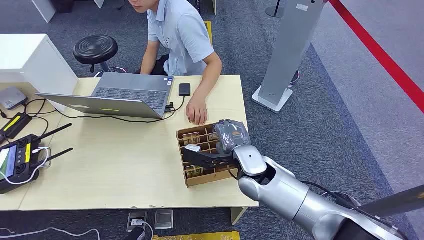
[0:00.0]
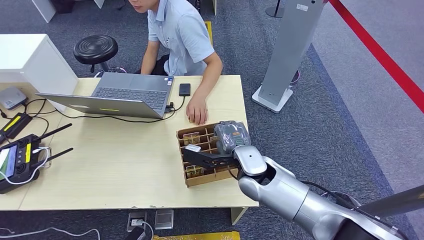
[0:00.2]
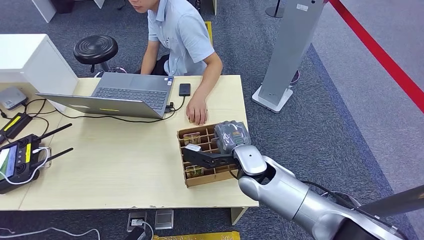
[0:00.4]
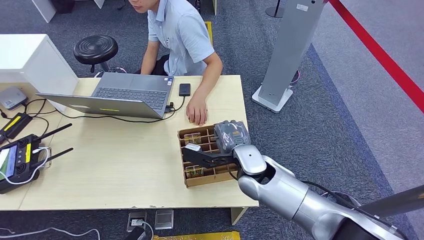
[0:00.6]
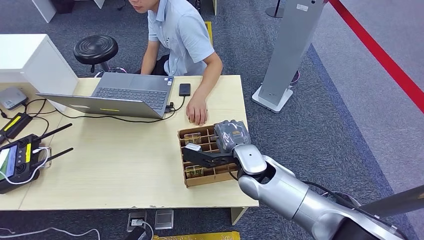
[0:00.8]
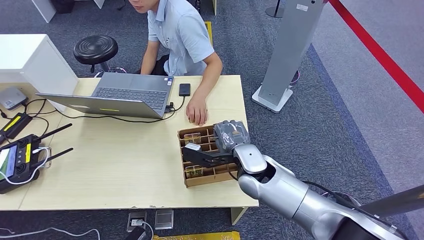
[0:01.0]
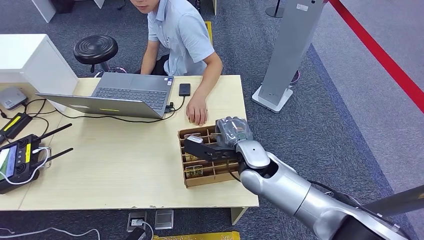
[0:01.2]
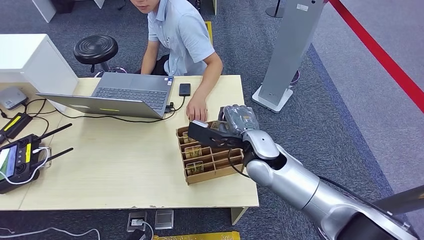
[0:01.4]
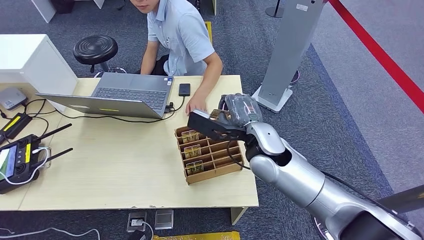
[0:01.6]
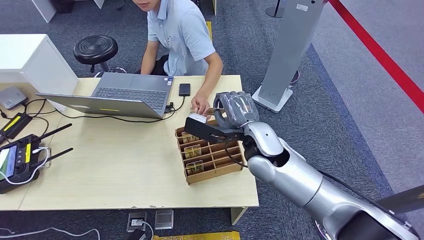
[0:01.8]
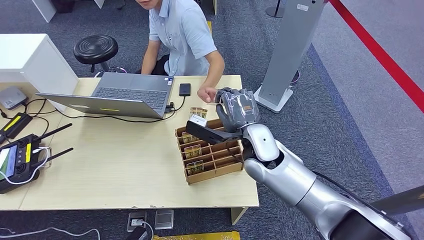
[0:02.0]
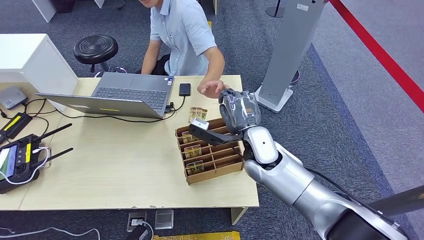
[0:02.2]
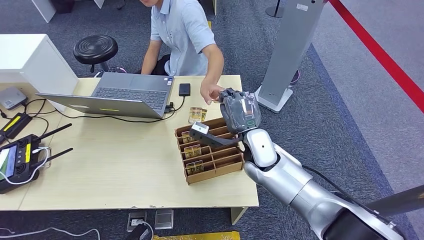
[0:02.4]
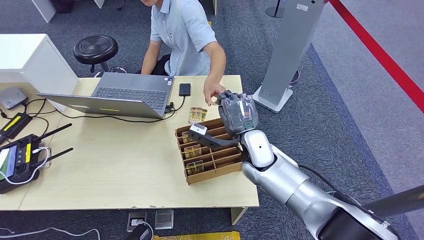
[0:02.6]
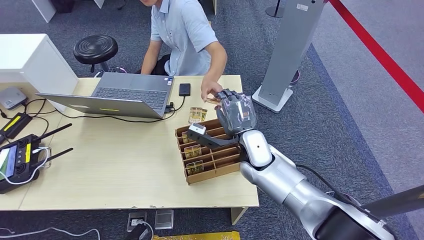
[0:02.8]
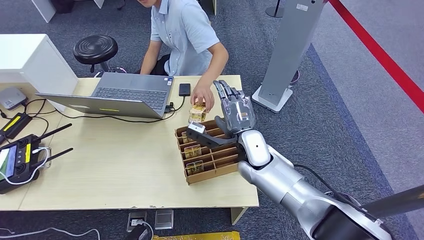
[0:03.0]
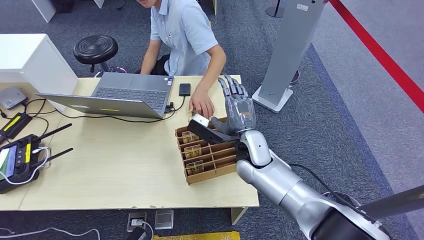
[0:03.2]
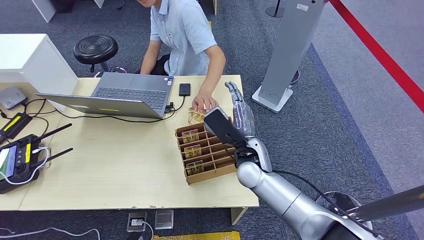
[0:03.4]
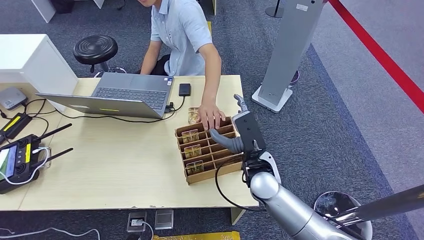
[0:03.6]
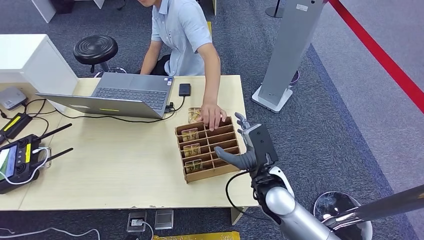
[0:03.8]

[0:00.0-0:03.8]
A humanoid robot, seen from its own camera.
Step, 0:00.0 to 0:01.8: Pick up the room card from the card holder.
Step, 0:02.0 to 0:03.8: Hand the room card to the target.
0:02.6 to 0:03.8: The right hand shifts some 10 cm backward.

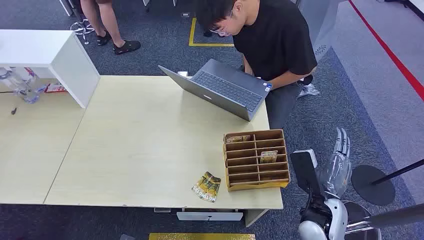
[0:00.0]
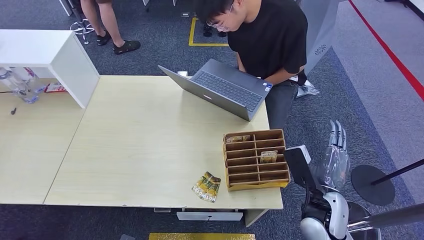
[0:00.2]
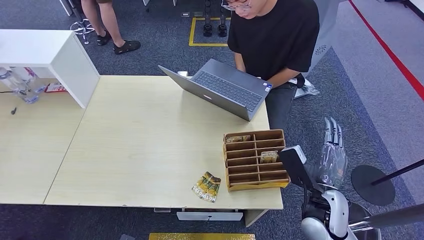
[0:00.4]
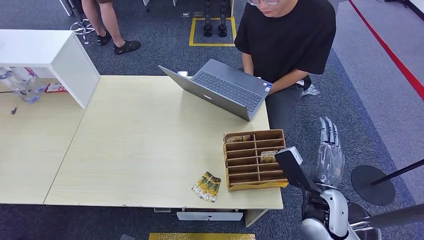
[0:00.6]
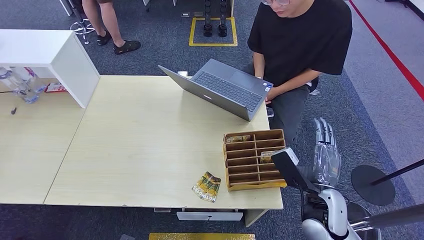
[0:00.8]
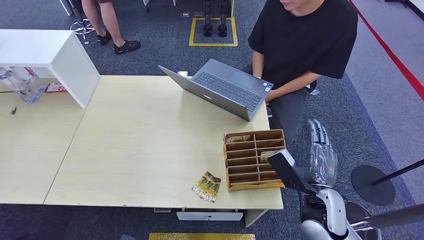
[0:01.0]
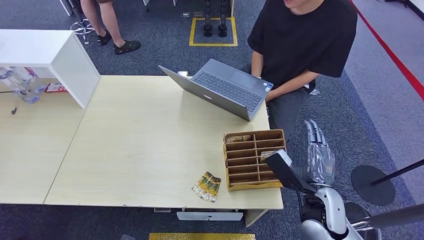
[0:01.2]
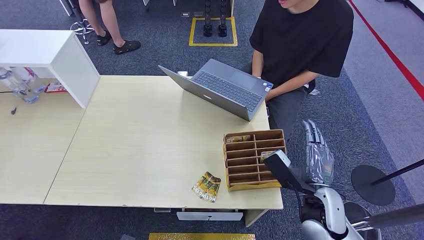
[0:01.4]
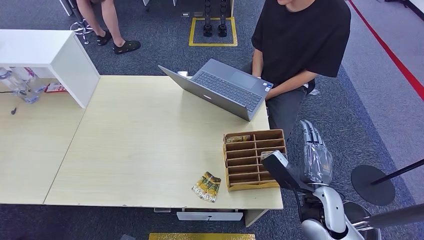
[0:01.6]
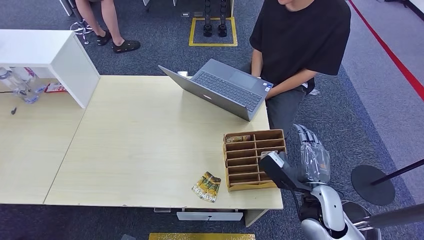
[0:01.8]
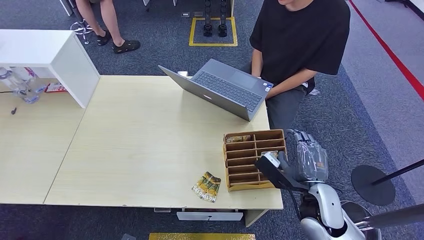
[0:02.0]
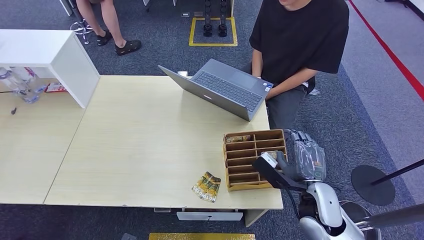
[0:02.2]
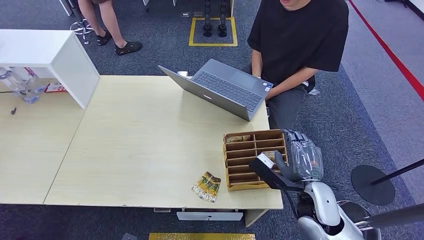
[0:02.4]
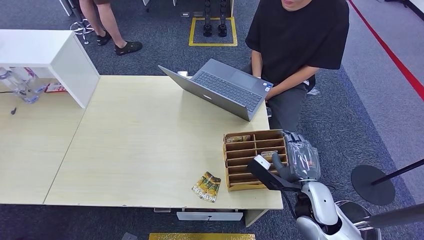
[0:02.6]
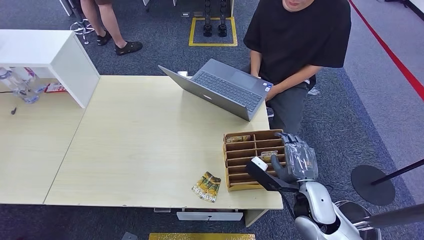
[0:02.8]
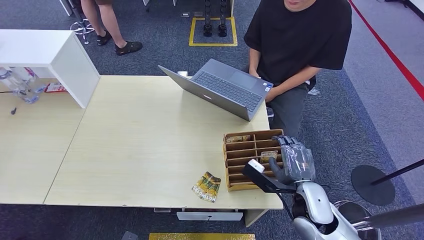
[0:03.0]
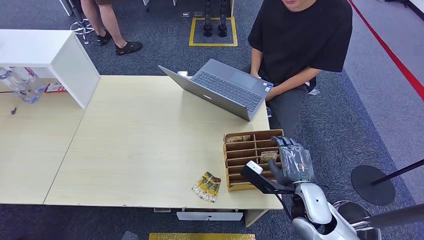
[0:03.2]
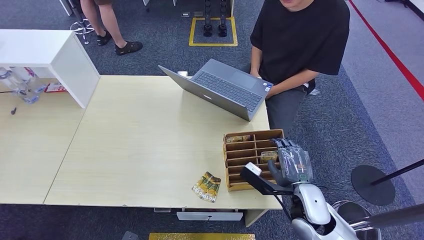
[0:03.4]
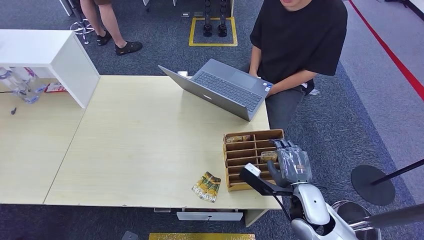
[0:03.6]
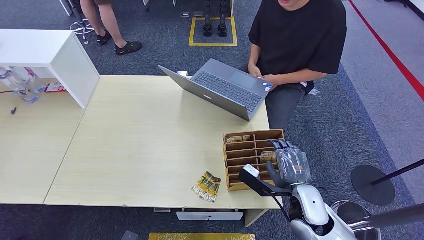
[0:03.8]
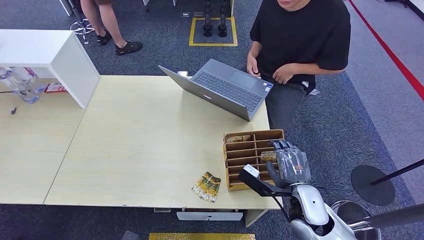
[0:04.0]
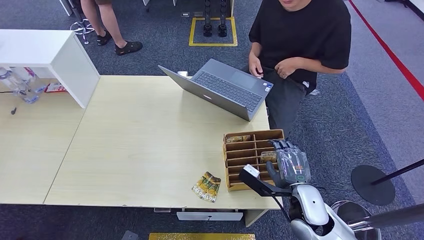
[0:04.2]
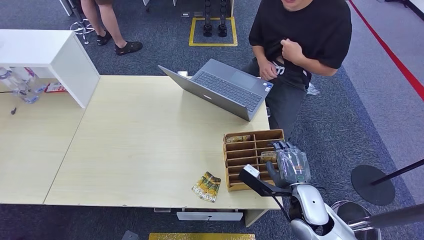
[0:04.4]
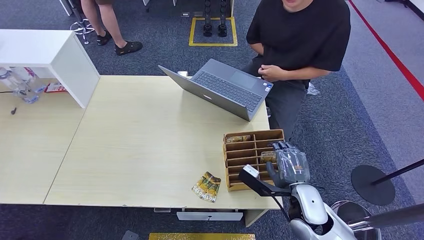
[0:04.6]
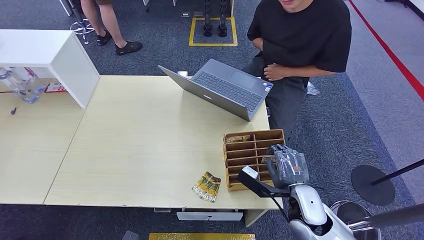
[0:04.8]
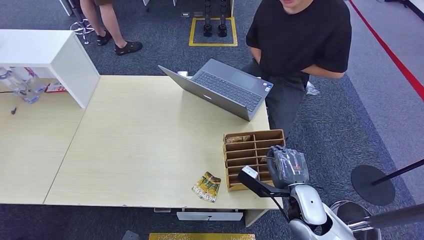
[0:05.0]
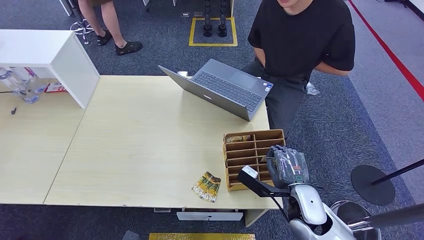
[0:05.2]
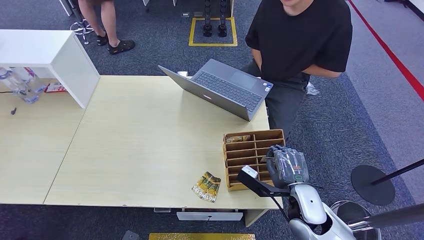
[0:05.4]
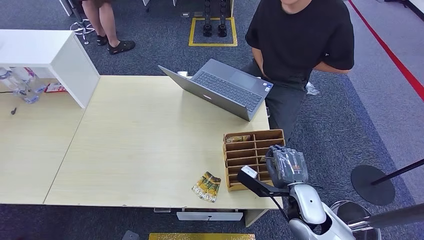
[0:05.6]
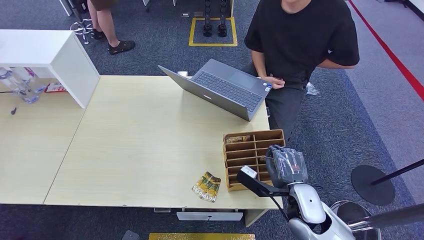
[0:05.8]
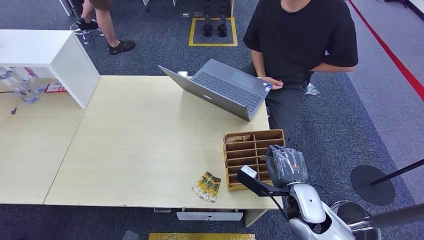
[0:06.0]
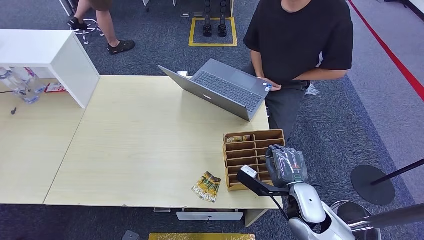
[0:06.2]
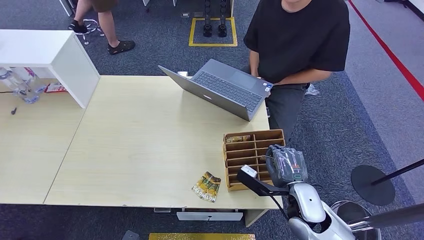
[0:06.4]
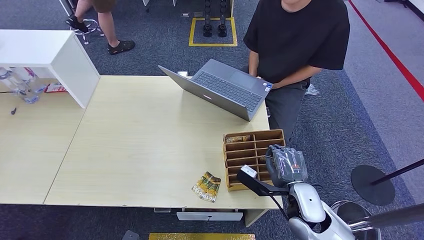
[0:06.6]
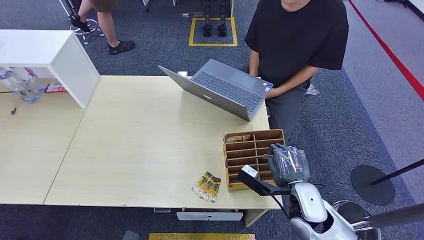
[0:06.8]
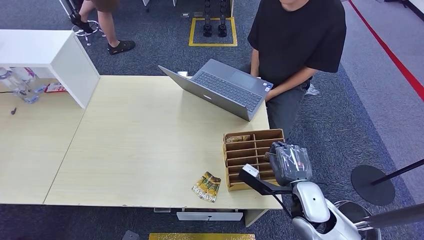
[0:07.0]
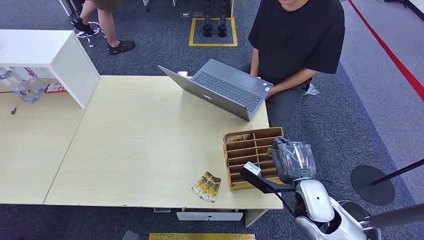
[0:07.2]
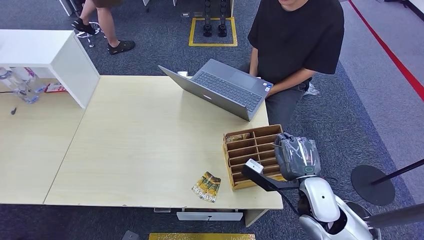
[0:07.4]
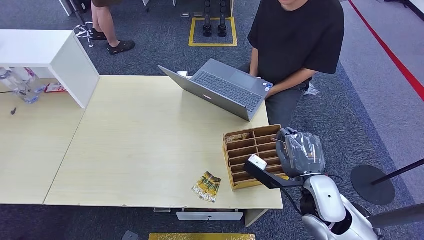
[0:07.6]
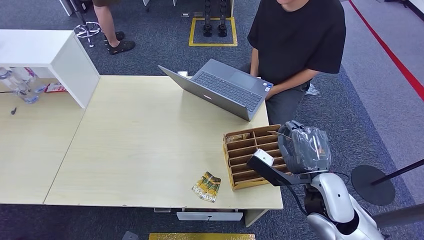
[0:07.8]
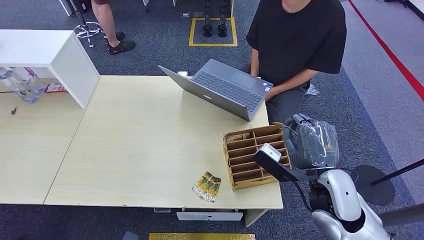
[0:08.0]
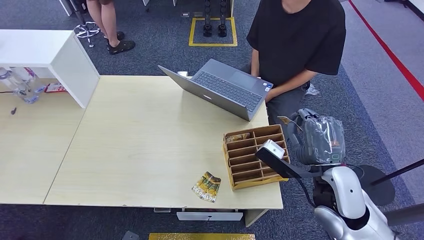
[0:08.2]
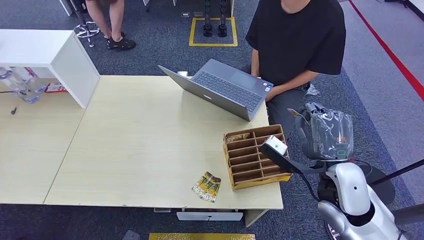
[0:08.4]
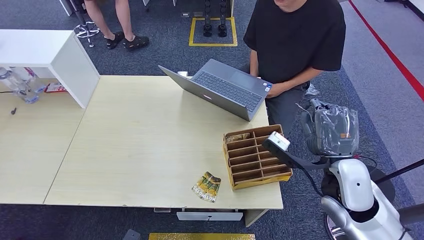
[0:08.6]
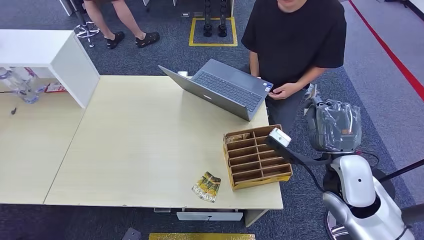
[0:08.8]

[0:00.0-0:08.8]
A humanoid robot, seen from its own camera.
Step, 0:00.0 to 0:07.4: Pick up the room card from the card holder.
Step, 0:07.6 to 0:08.6: Hand the room card to the target.
0:03.0 to 0:04.4: The two hands keep their place.
0:04.4 to 0:05.8: Both hands stay about where they are.
0:05.8 to 0:07.4: The hands move only a little.
0:07.4 to 0:08.8: The right hand is displaced upward by approximately 10 cm.

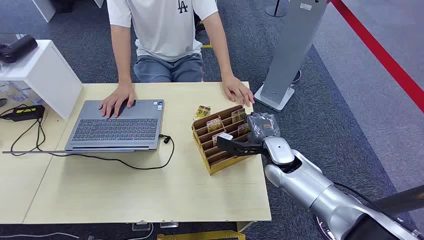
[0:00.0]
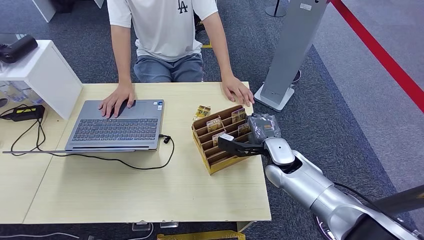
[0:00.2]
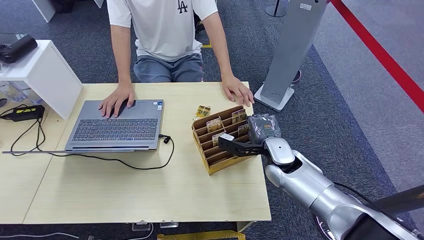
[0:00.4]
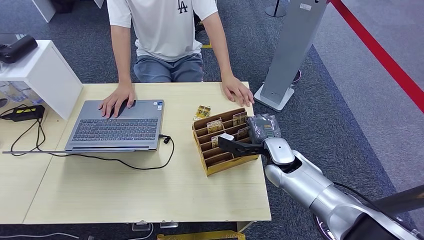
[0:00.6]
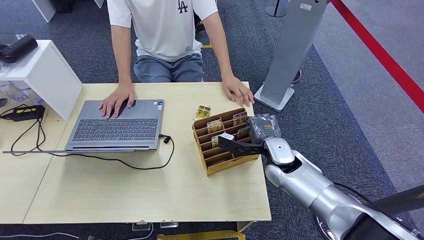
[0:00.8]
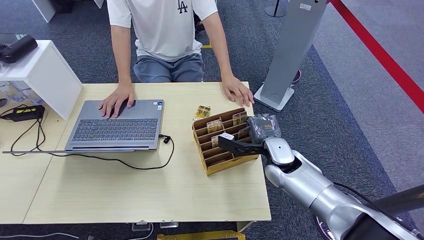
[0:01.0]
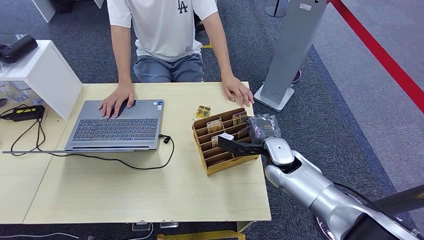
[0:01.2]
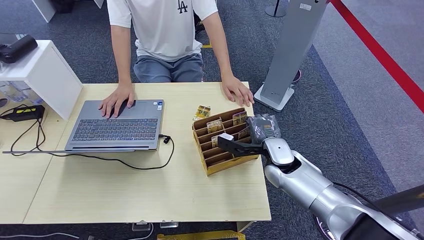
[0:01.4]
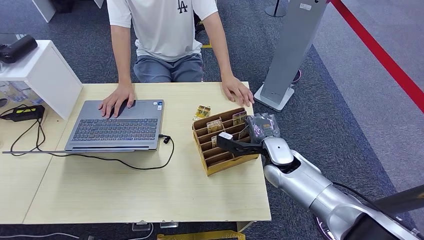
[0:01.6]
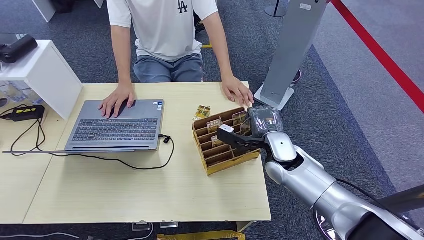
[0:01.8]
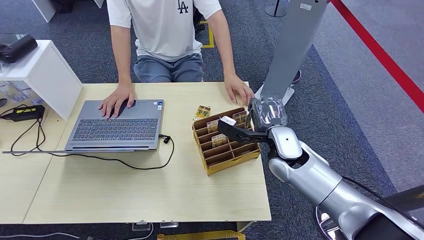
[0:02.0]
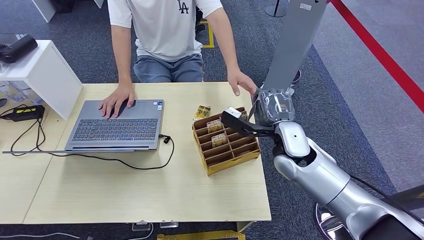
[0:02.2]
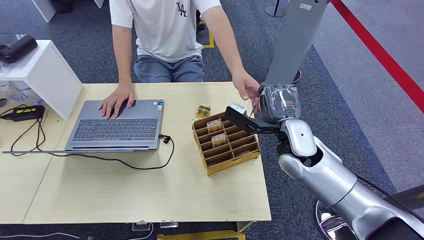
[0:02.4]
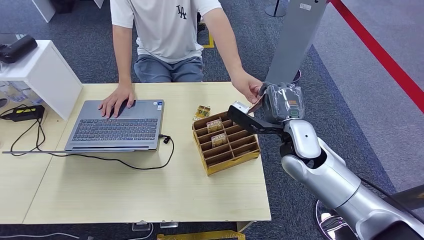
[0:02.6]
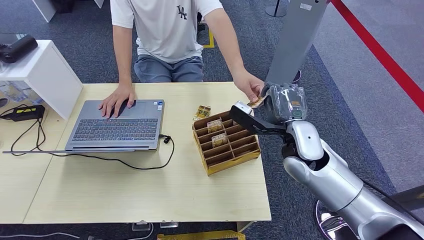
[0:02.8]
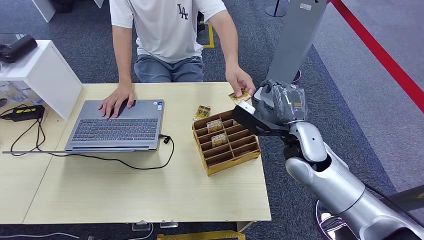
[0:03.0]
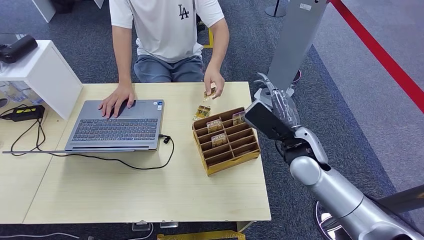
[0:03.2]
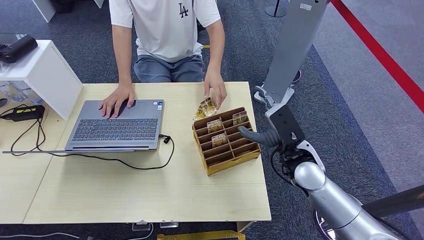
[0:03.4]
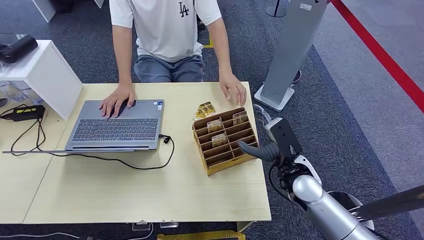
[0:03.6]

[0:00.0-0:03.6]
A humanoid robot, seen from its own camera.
Step, 0:00.0 to 0:02.2: Pick up the room card from the card holder.
Step, 0:02.6 to 0:03.4: Hand the room card to the target.
0:01.8 to 0:03.6: The right hand heads backward, covering about 5 cm, and goes upward and returns, approximately 10 cm each way.
